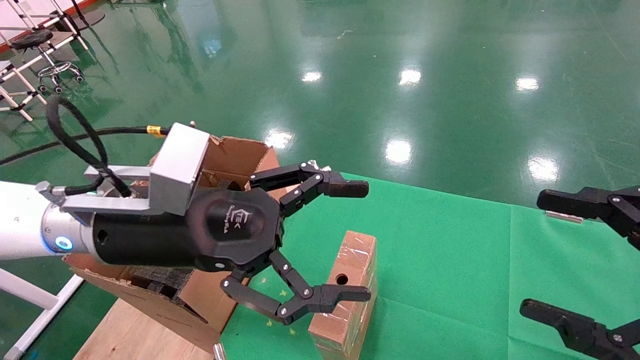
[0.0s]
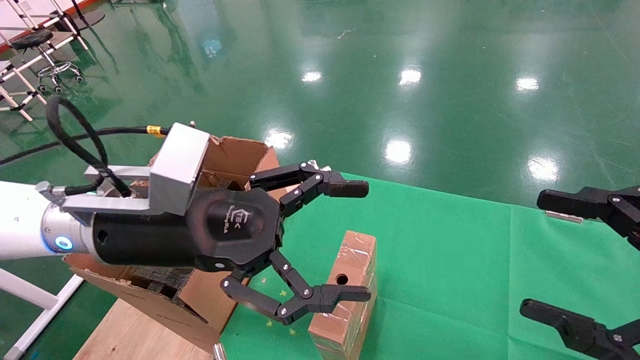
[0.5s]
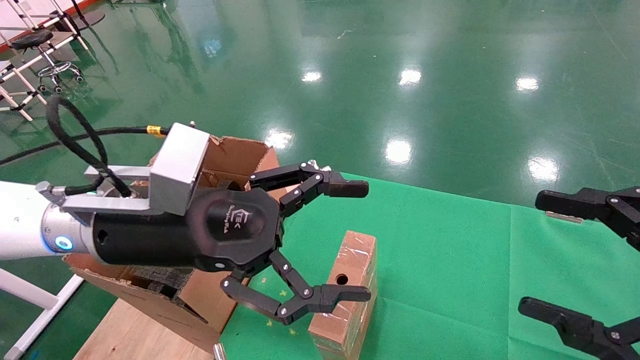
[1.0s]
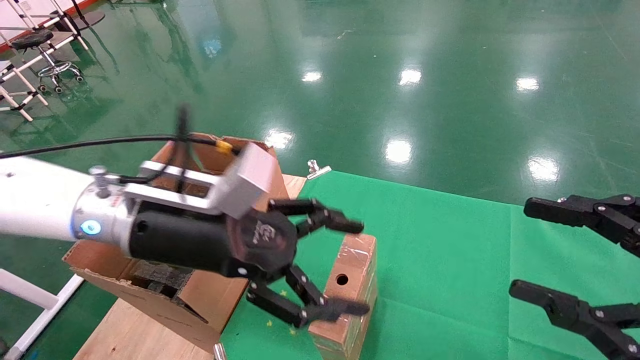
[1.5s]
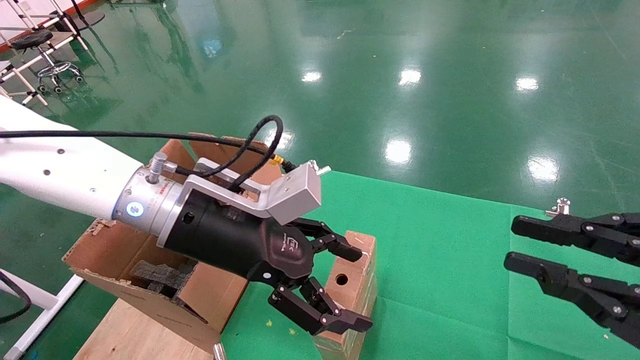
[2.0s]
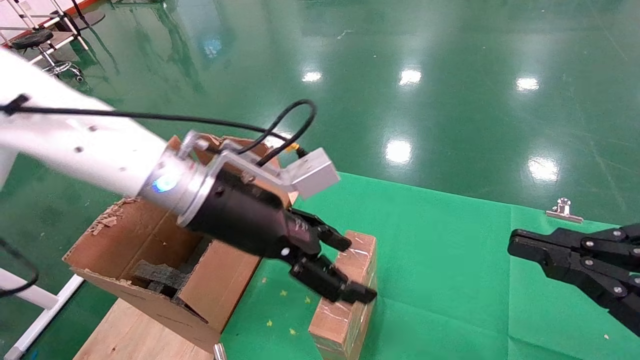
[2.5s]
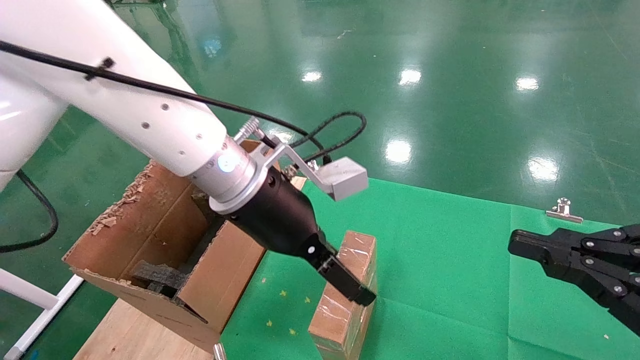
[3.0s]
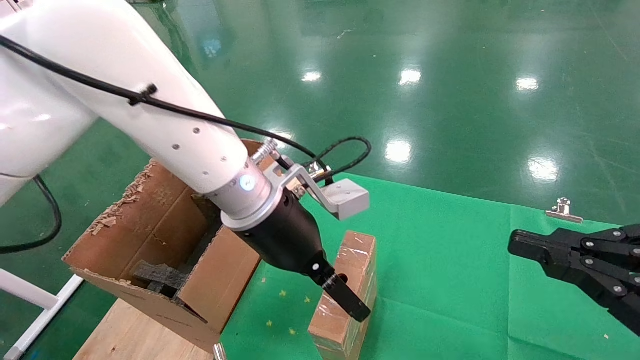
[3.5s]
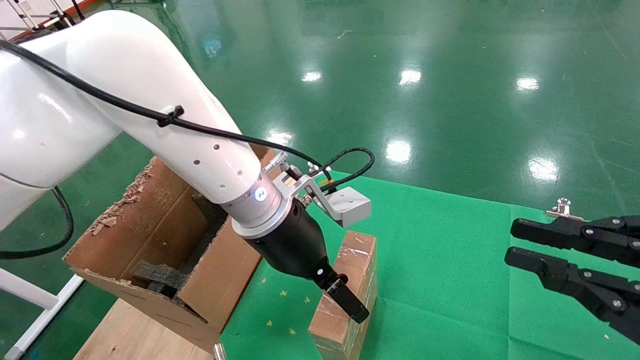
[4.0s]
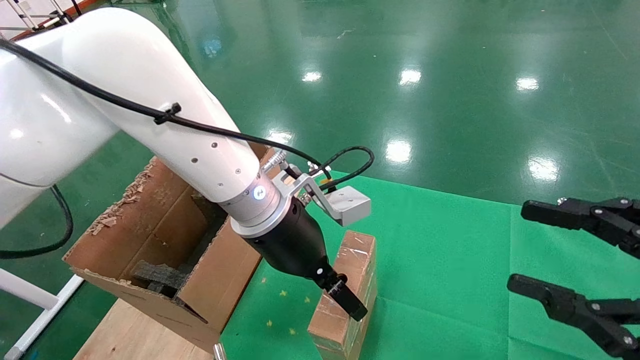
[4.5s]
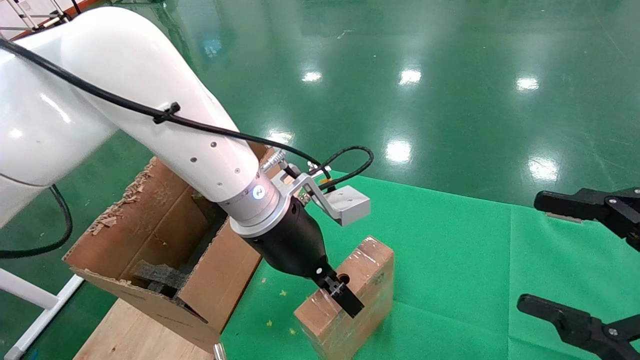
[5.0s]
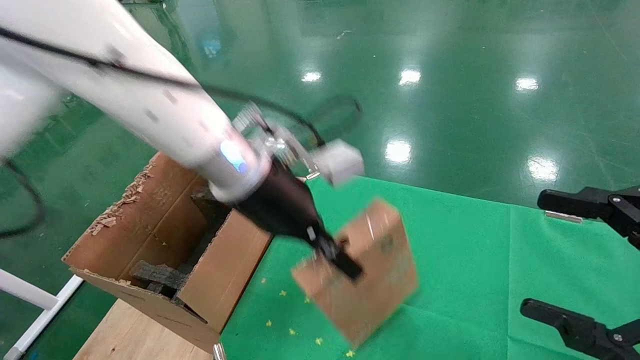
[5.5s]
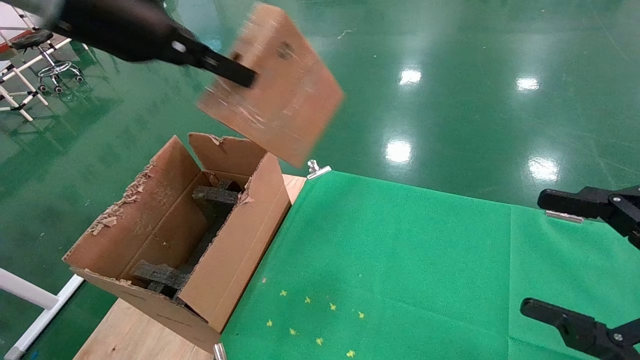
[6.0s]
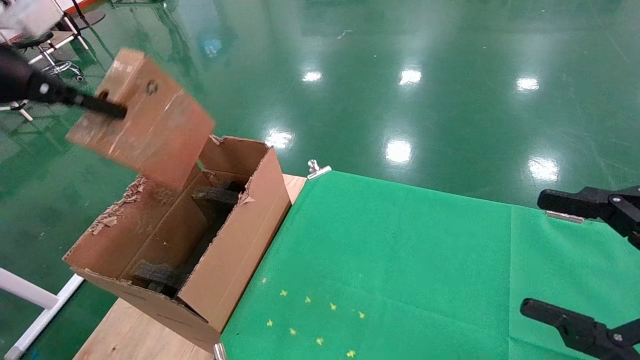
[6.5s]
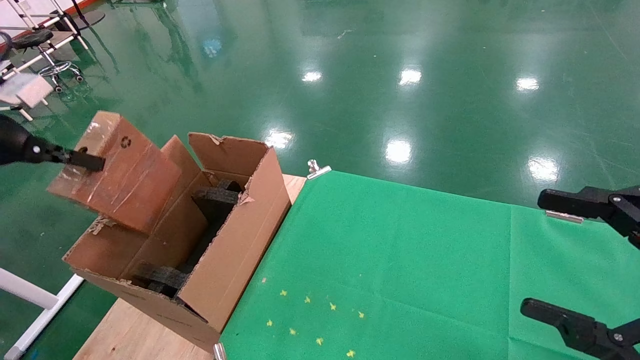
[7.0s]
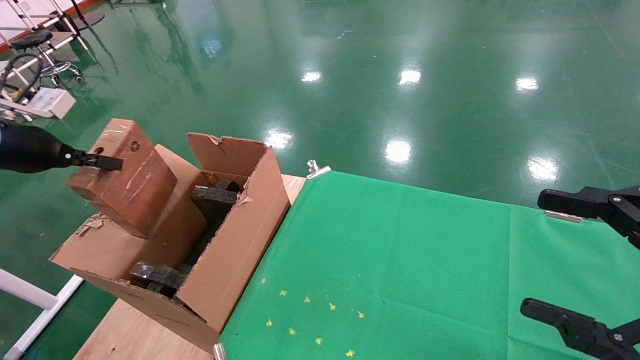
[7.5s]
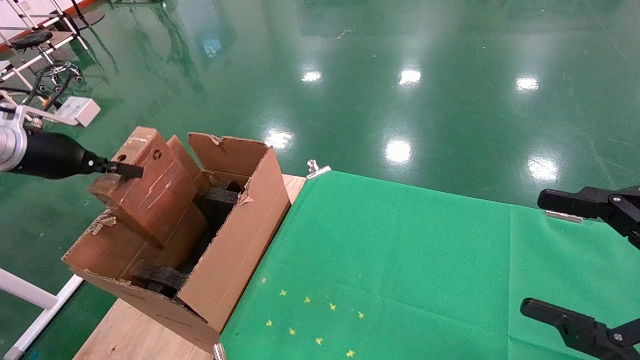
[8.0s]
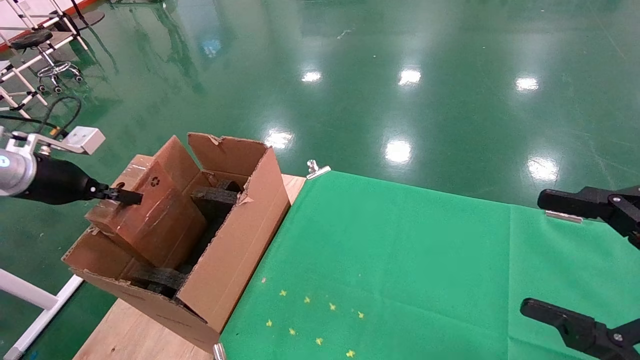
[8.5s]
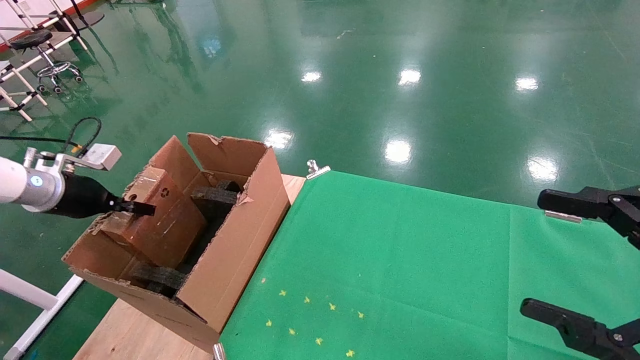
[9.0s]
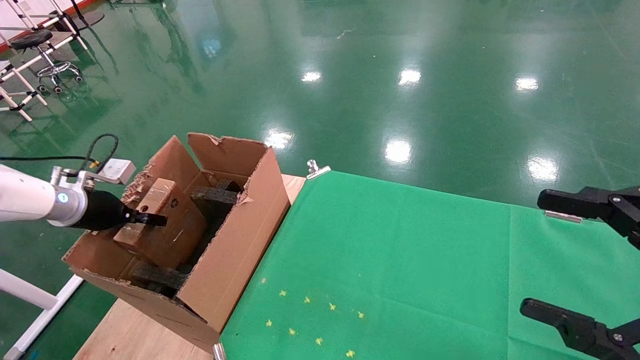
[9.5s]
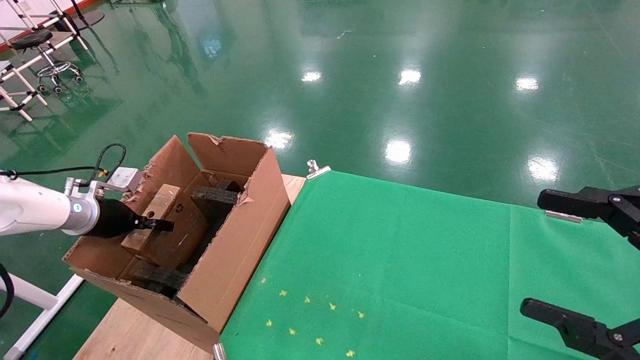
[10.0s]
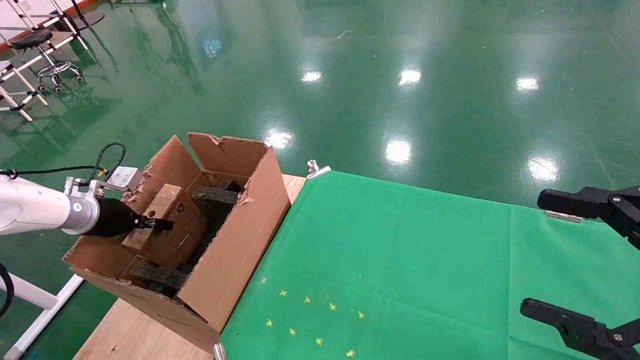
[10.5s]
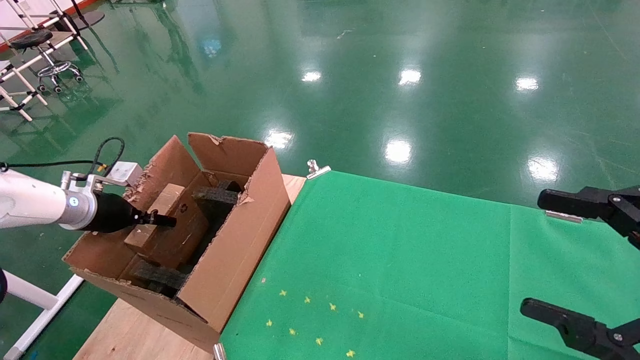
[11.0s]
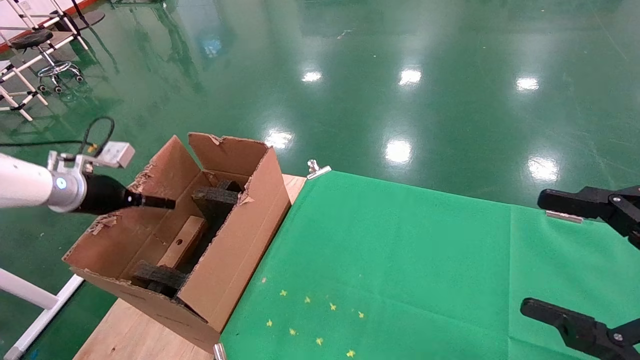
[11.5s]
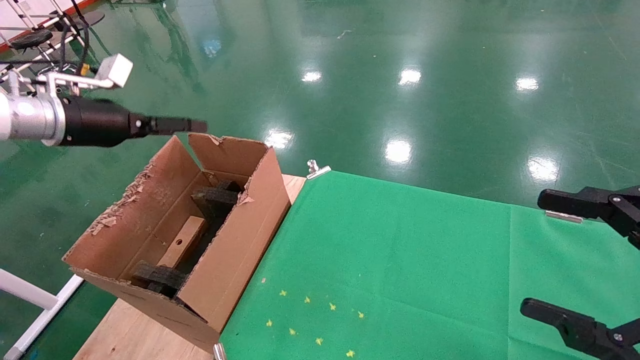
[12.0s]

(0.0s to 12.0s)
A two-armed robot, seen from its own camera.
Task of the whole recording: using a robotic arm to pick up a cardboard box and palace it the carton.
Step, 1.5s - 5.0s: Pick up the mouse and the power cord paper box.
Step, 5.5s - 12.0s: Place the mouse and the power cord paper box into the container.
0.0s - 2.0s: The right gripper closes up. The left gripper ends up some 5 cm from where it was.
2.0s - 4.0s: The left gripper goes some 5 cm to the right.
4.0s - 6.0s: The left gripper moves upward and to the left, about 30 cm, and closes up; the right gripper opens.
6.0s - 8.0s: The left gripper is displaced to the left and downward by about 30 cm.
8.0s - 10.0s: The left gripper shifts approximately 15 cm downward and forward.
10.0s - 12.0s: The left gripper travels upward by some 15 cm, and opens its fingers.

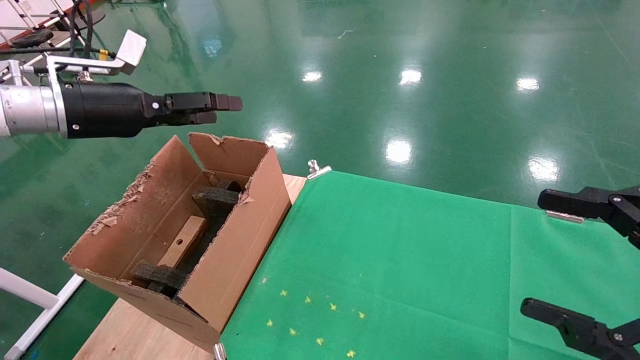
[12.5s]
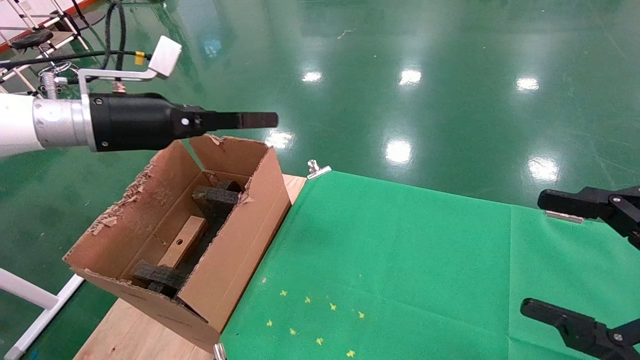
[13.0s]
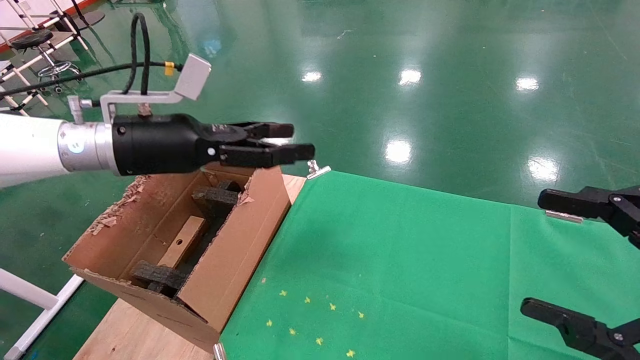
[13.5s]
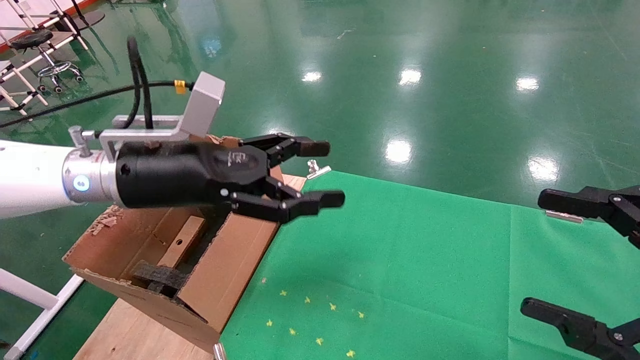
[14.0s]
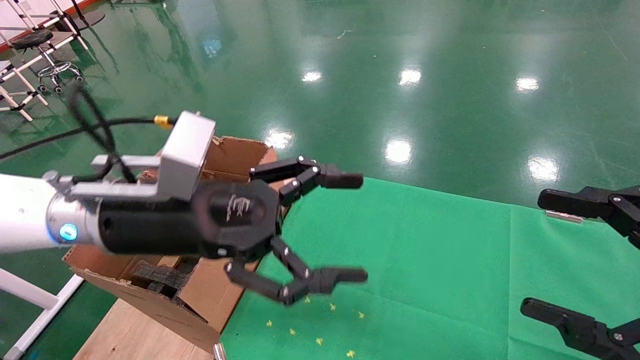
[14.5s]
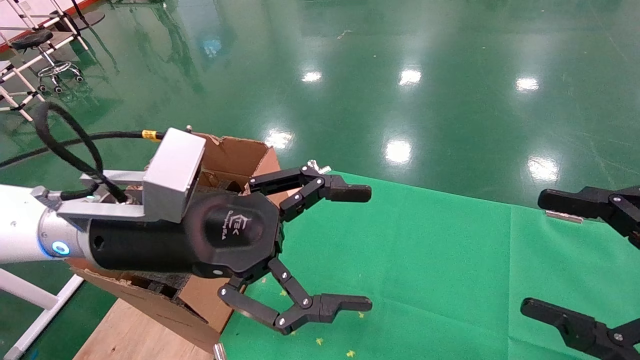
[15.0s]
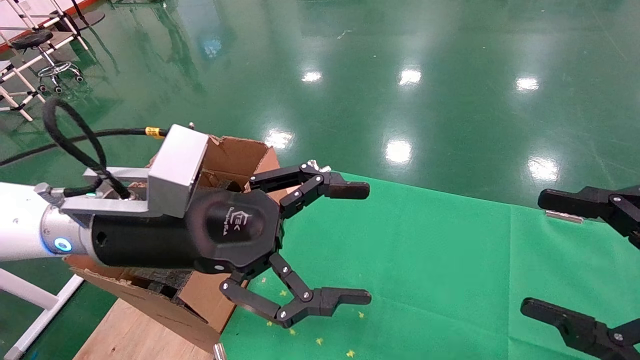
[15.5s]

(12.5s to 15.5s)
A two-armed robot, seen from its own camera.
Task of the whole recording: using a robotic arm to pick up a cardboard box and palace it the carton.
12.5s - 14.0s: The left gripper is displaced to the right and downward by about 15 cm.
14.0s - 15.5s: The left gripper travels backward by about 5 cm.
